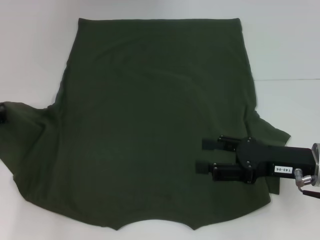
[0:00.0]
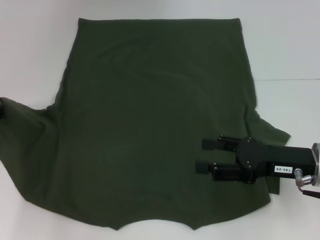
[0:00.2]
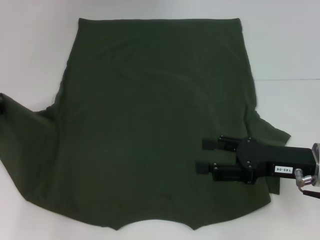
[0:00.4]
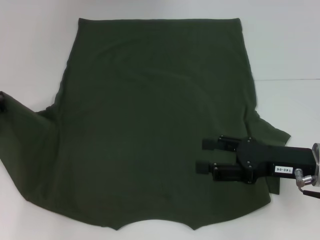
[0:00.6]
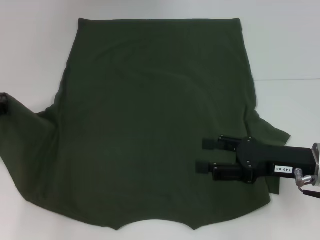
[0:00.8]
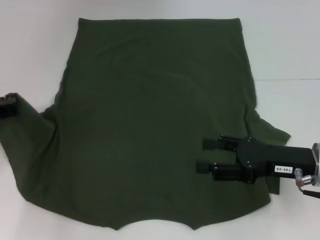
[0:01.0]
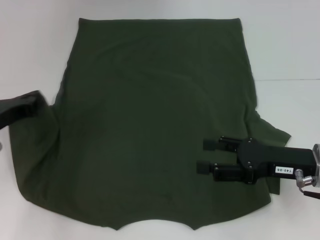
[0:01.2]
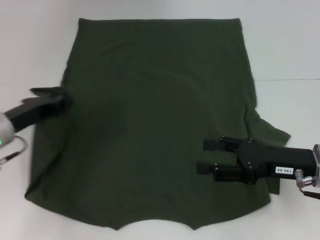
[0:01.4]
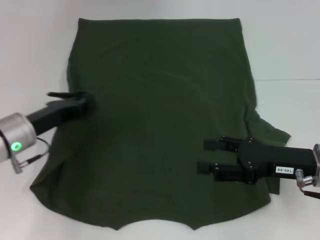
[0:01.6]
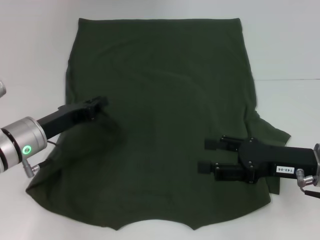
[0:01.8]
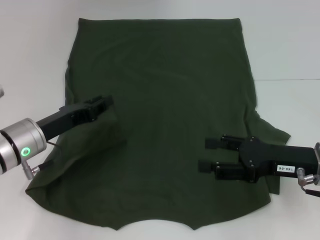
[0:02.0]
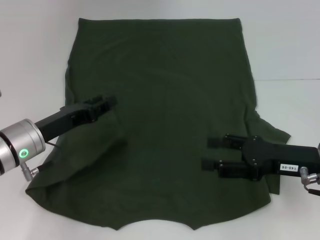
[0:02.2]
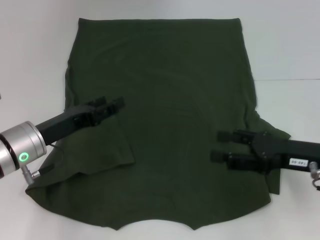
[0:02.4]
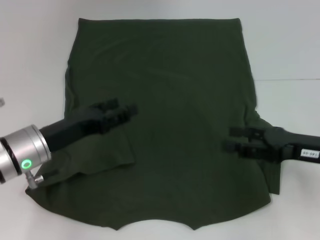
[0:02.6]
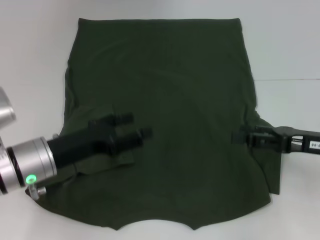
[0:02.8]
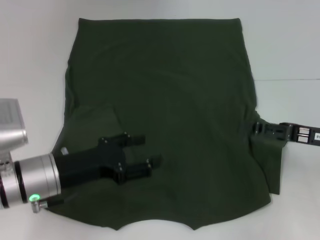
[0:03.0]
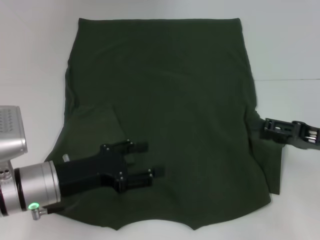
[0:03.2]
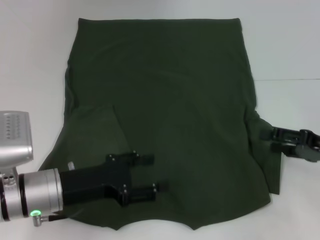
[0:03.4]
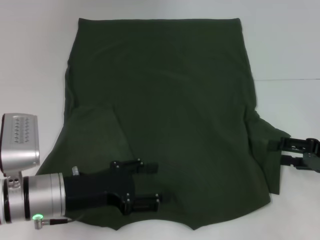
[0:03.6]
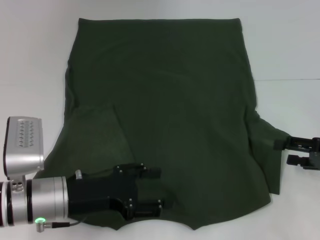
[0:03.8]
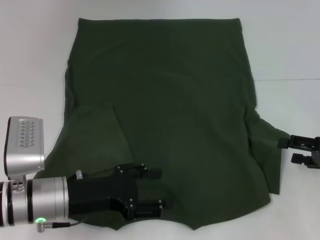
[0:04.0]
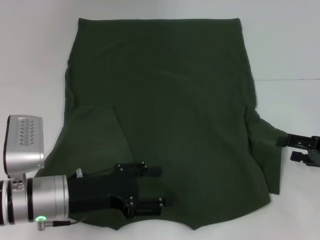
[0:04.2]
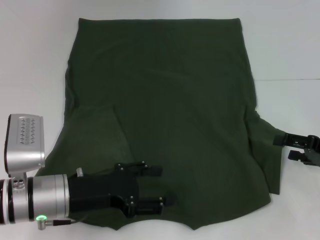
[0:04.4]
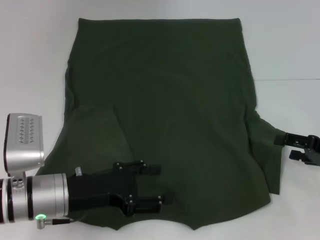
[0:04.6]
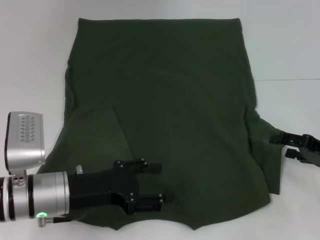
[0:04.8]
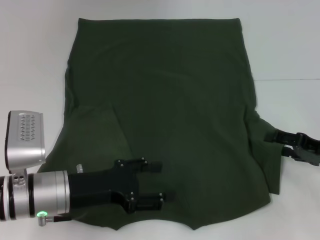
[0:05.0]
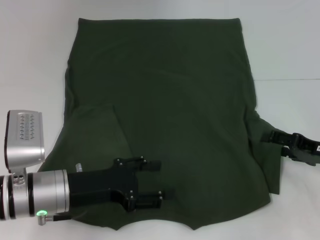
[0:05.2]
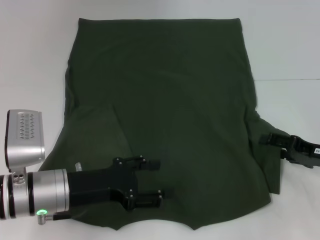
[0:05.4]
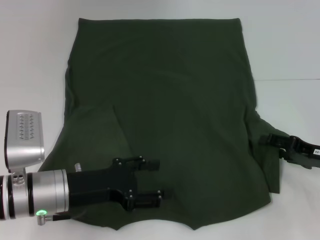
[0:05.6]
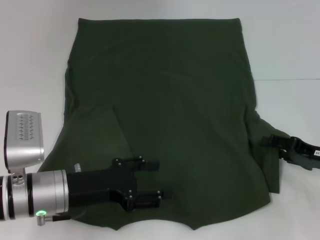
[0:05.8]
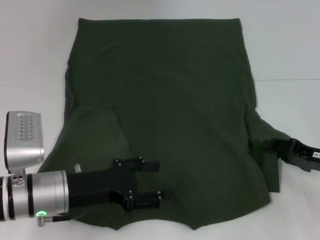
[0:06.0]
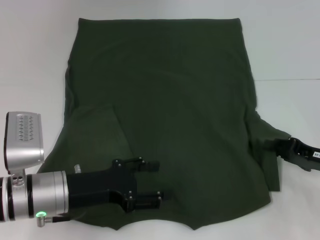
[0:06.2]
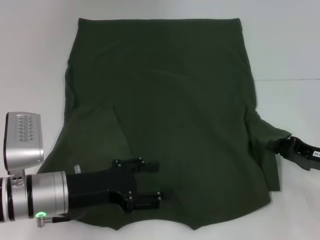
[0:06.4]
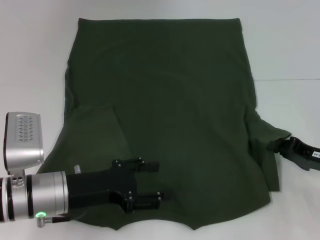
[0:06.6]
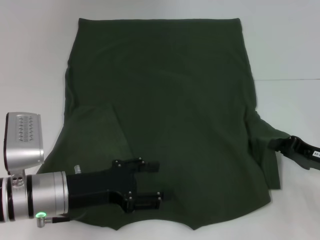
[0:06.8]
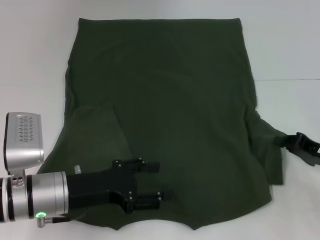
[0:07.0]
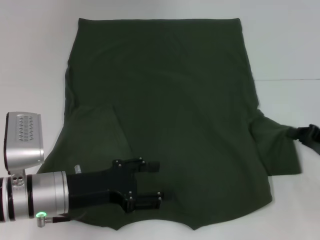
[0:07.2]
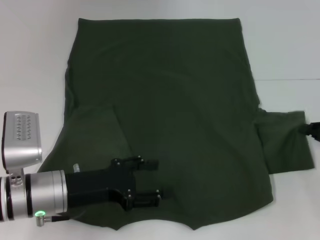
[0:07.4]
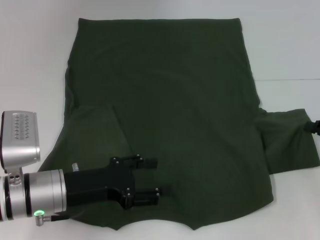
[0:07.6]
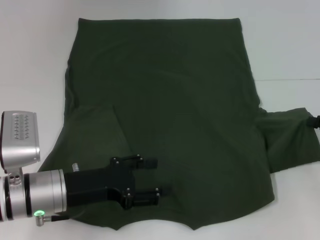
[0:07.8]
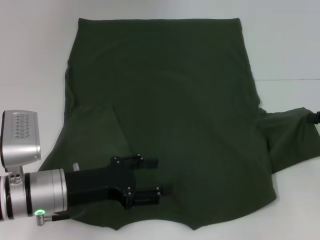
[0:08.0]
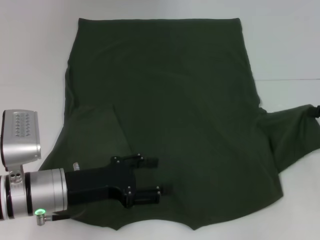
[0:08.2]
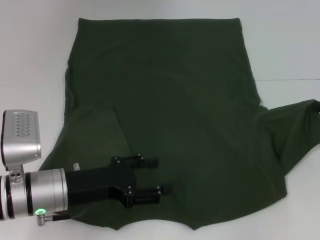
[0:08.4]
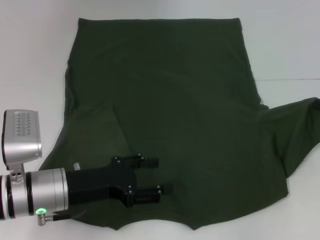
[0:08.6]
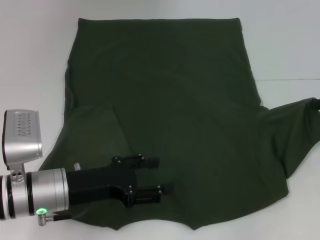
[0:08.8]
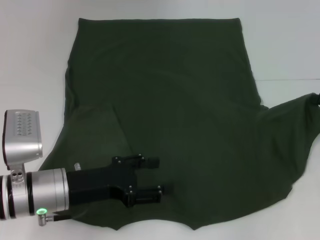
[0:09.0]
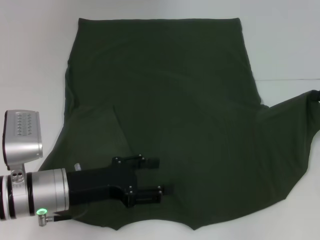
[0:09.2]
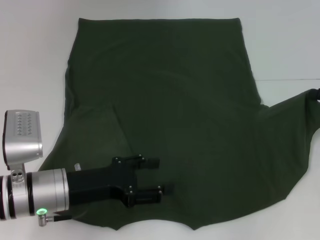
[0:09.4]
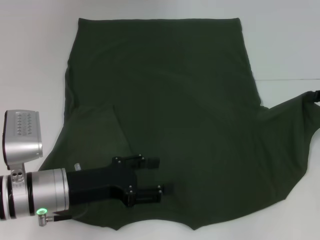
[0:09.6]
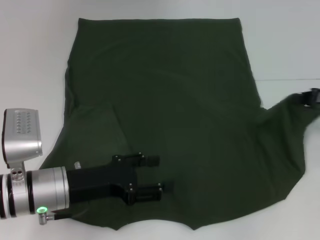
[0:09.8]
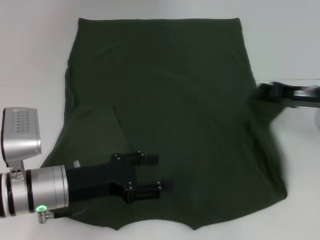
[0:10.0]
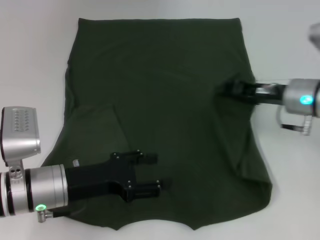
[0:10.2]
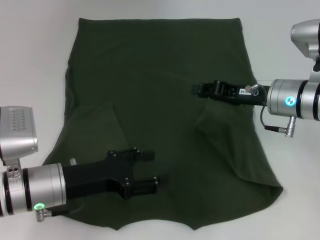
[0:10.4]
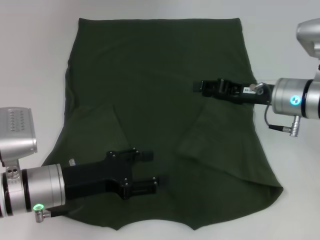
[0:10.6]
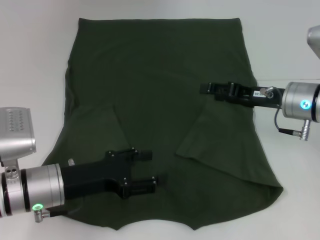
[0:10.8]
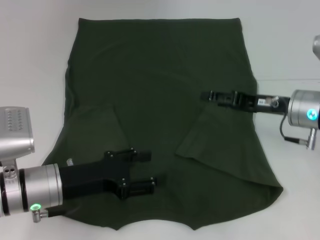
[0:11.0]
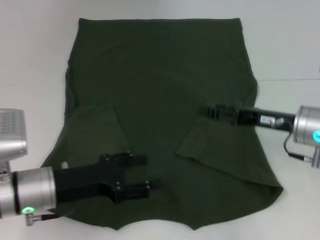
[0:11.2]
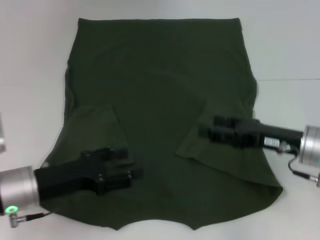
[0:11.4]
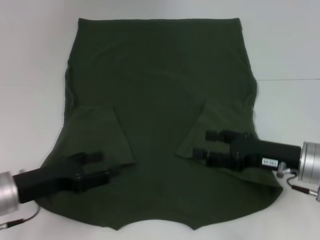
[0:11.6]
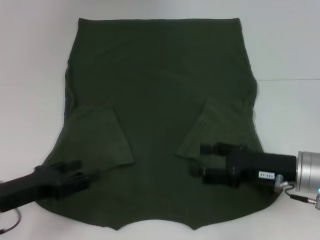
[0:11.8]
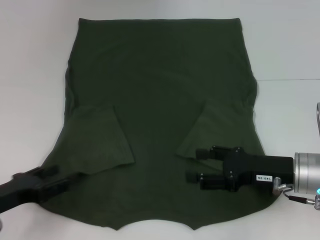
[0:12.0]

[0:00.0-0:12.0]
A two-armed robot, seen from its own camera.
Step, 0:00.0 to 0:02.4: Fold the bottom left sleeve with your left hand.
Step, 0:02.6 to 0:11.0: Fold the bottom right sleeve with your right hand.
0:00.0 to 0:01.6: The left gripper moves to the right, roughly 10 cm.
0:01.6 to 0:03.0: The right gripper travels to the right by approximately 5 cm. The left gripper heads backward, covering about 5 cm, and opens its fingers.
0:03.0 to 0:04.4: The right gripper moves about 5 cm.
0:04.4 to 0:06.0: The grippers stay close to where they were, moving slightly.
0:06.0 to 0:07.6: The right gripper goes roughly 5 cm to the right, and closes up.
0:07.6 to 0:09.0: The right gripper changes place by some 5 cm.
0:09.0 to 0:10.4: The right gripper travels to the left by approximately 15 cm.
0:10.4 to 0:12.0: The left gripper shifts roughly 10 cm to the left. Meanwhile the right gripper shifts some 10 cm backward, and opens up.

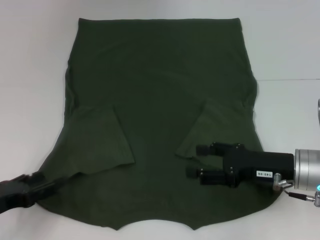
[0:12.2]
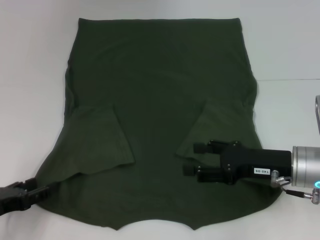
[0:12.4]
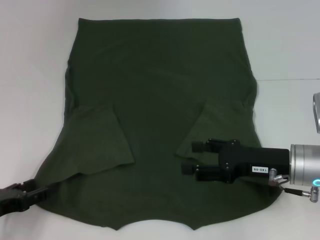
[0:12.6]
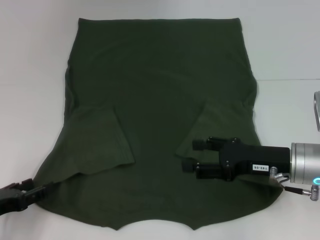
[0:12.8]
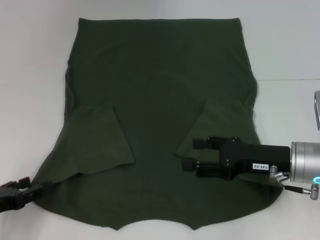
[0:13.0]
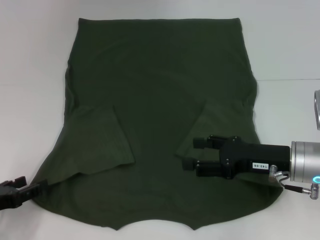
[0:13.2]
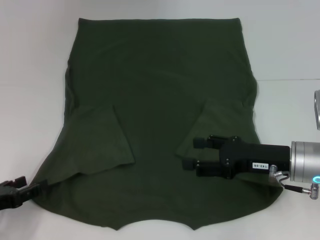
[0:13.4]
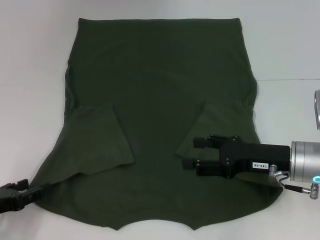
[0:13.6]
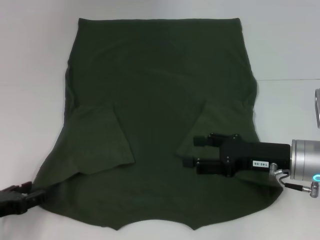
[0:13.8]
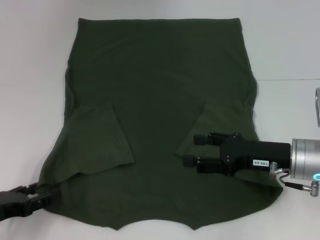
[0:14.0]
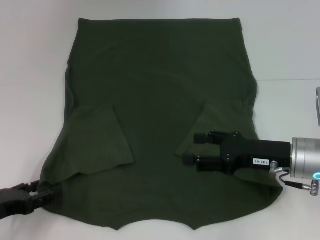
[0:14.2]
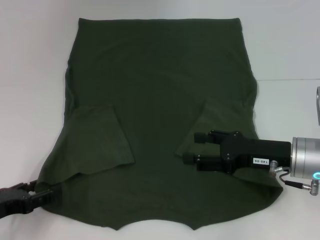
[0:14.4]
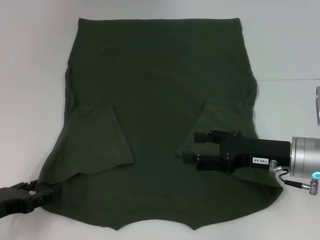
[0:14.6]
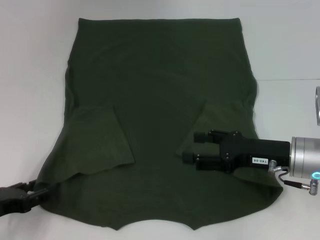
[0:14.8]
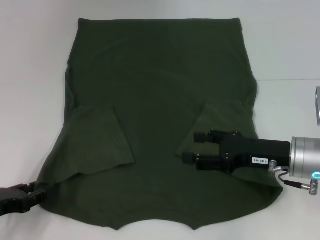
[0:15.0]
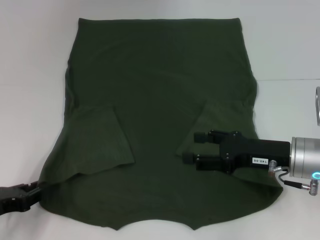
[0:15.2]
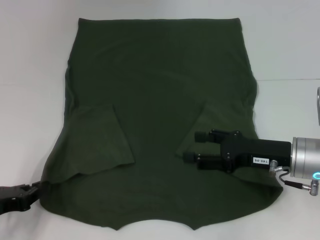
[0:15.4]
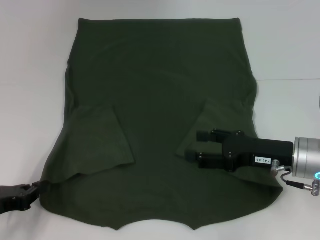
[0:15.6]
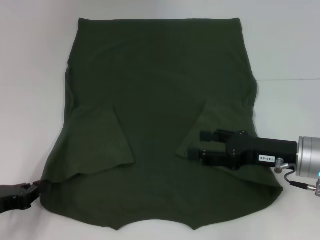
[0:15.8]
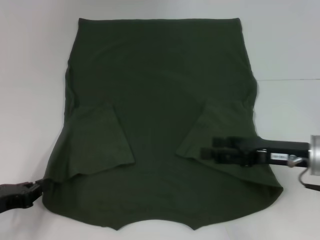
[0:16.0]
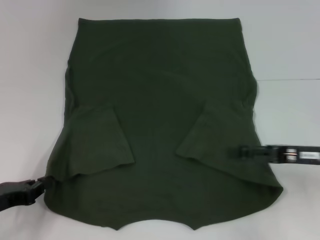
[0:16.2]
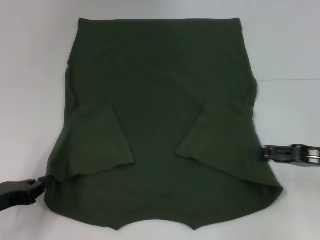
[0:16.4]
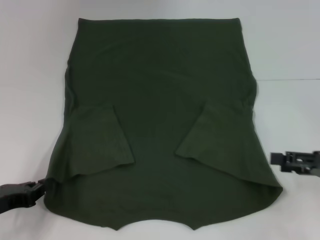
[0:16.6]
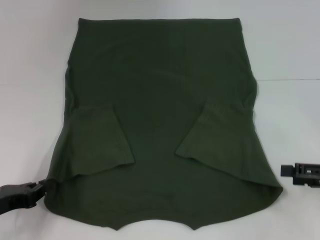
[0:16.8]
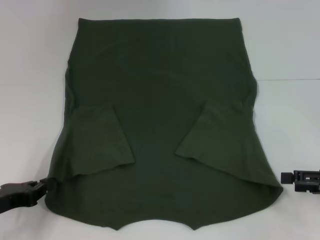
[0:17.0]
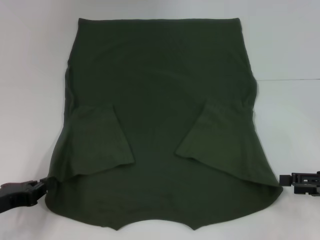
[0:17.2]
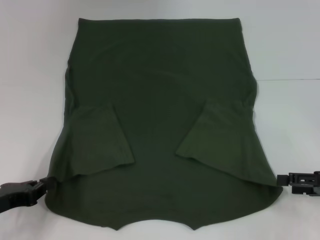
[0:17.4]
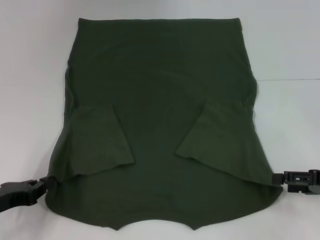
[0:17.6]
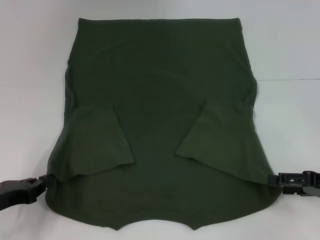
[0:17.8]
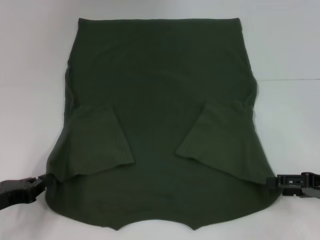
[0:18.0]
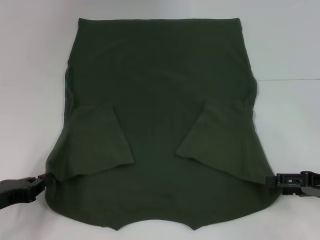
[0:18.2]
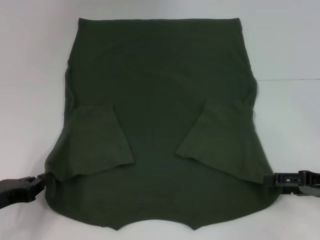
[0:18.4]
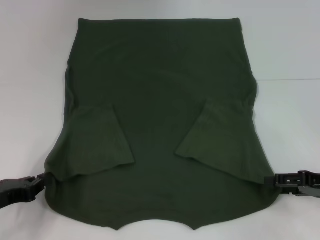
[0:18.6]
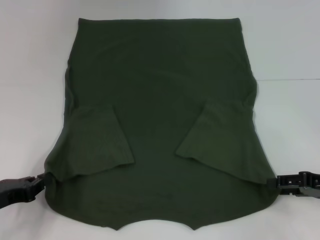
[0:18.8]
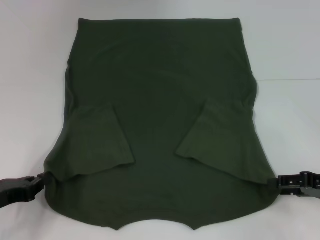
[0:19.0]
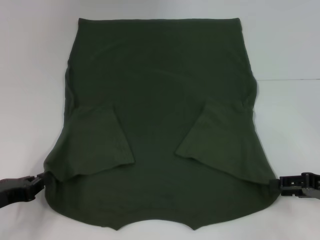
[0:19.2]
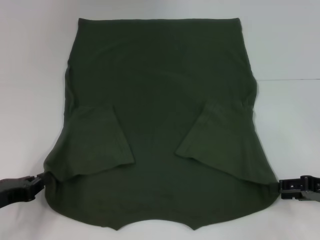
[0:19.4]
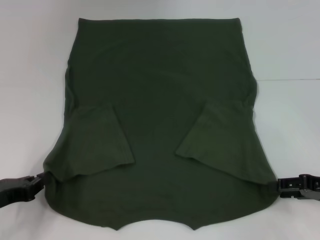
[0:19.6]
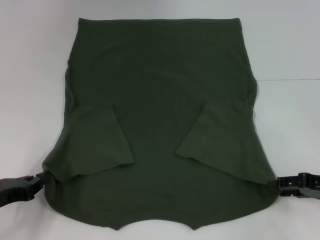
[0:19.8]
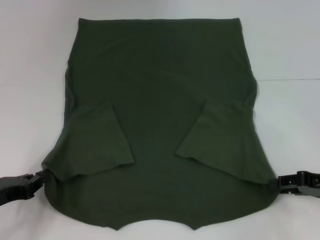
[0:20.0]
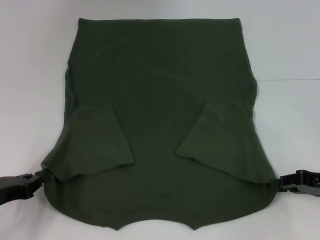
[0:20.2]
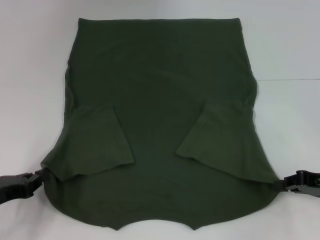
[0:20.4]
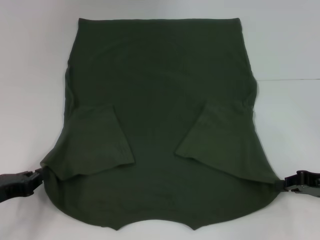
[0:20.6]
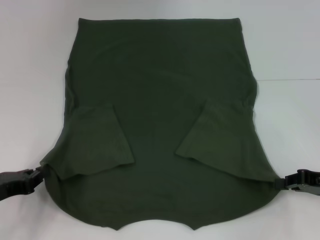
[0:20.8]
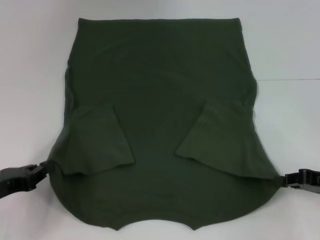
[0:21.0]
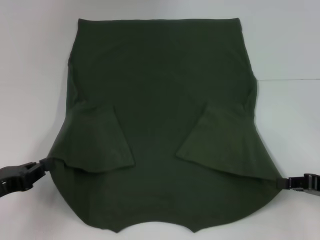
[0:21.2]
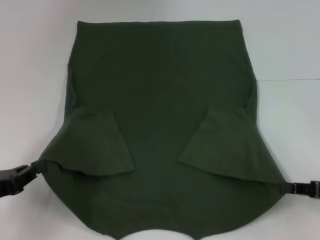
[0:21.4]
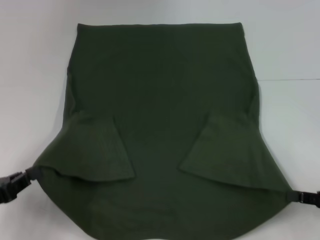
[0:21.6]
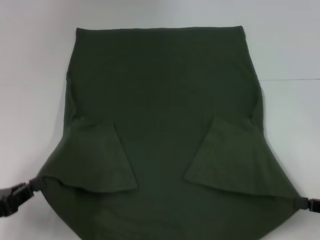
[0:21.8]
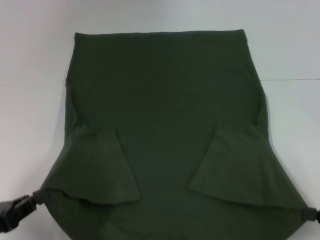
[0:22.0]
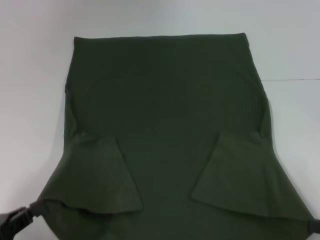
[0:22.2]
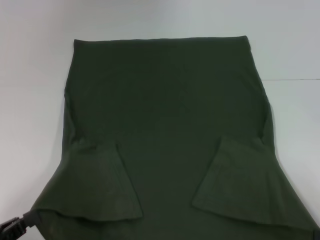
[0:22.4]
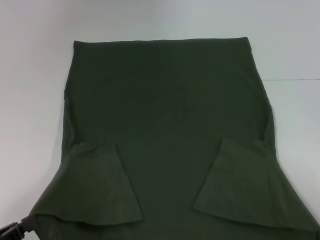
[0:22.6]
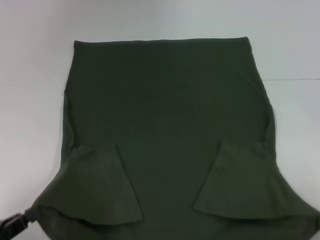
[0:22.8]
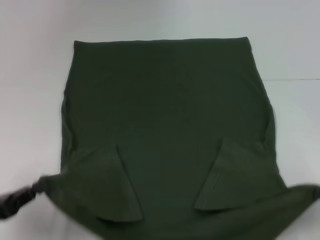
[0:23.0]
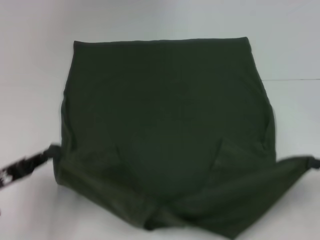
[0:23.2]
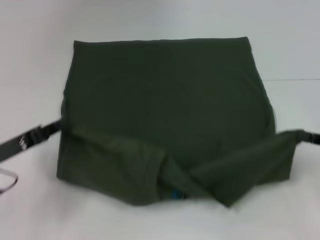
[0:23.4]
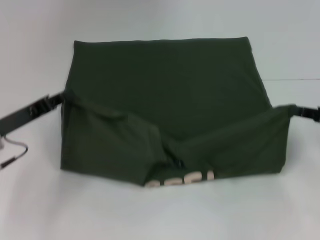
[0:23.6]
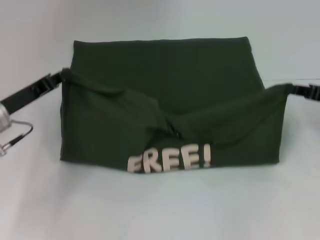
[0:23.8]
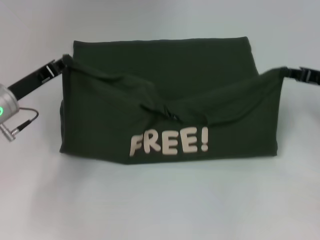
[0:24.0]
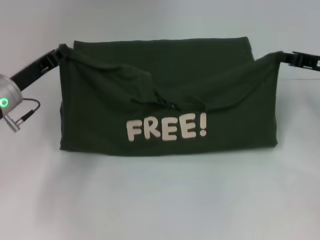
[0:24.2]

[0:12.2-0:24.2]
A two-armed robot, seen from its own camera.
Step, 0:12.2 to 0:15.8: Grab the bottom left corner with your left hand.
Step, 0:16.0 to 0:21.4: Grab the bottom right corner with your right hand.
0:12.2 to 0:13.8: The grippers make only small movements.
0:13.8 to 0:15.2: The left gripper closes up.
0:15.2 to 0:16.6: The left gripper closes up. Meanwhile the right gripper goes about 10 cm to the right.
0:16.6 to 0:18.2: The grippers stay close to where they were, moving slightly.
0:18.2 to 0:19.8: The right gripper closes its fingers.
0:19.8 to 0:21.2: The right gripper closes up.
0:21.2 to 0:22.6: Both grippers move backward, approximately 10 cm.
0:22.6 to 0:24.2: The two grippers go about 25 cm forward.
